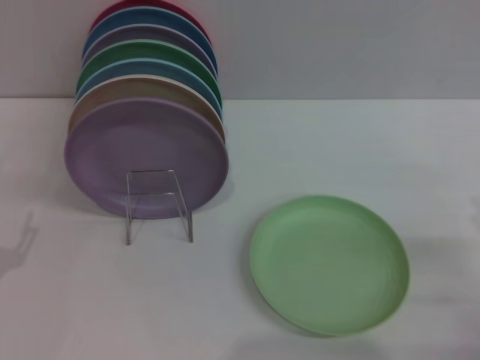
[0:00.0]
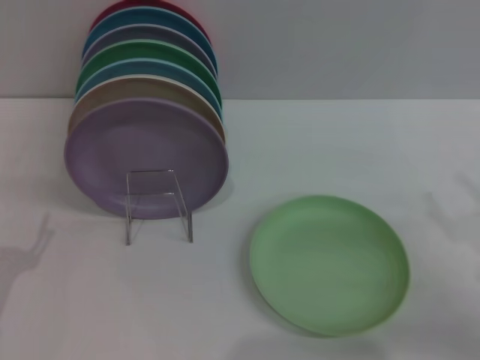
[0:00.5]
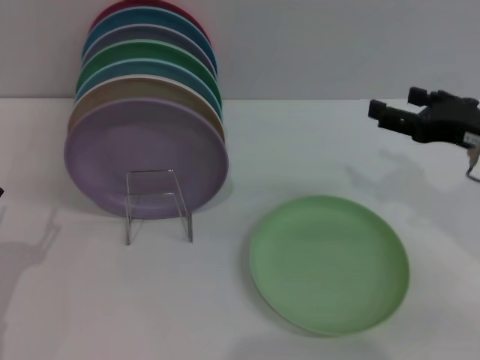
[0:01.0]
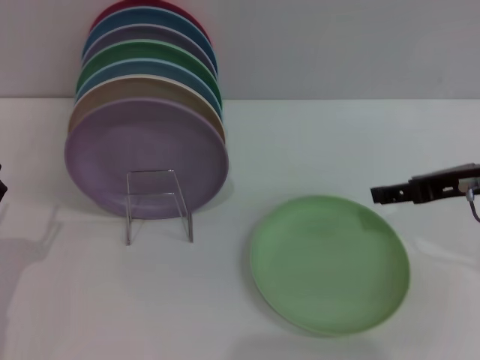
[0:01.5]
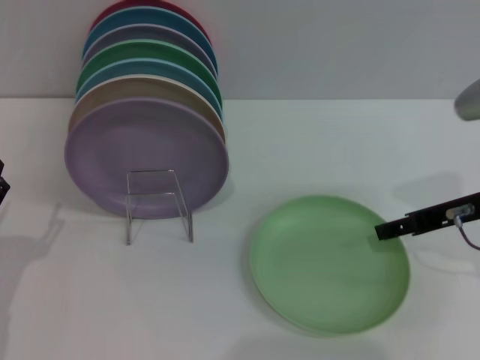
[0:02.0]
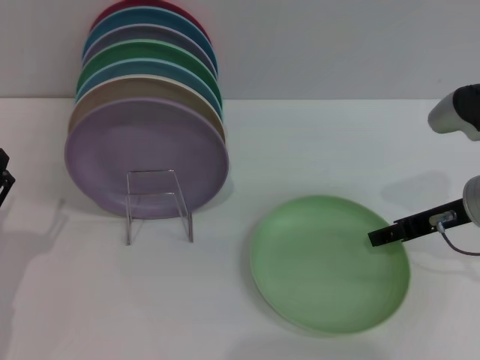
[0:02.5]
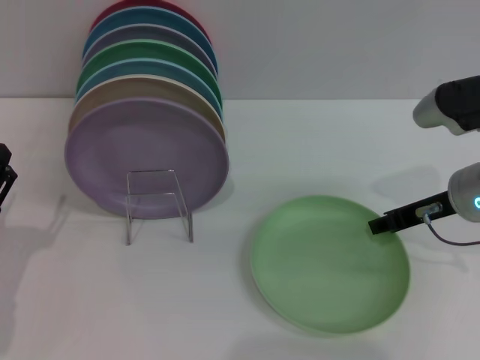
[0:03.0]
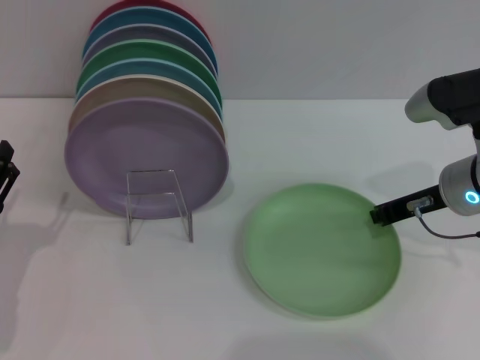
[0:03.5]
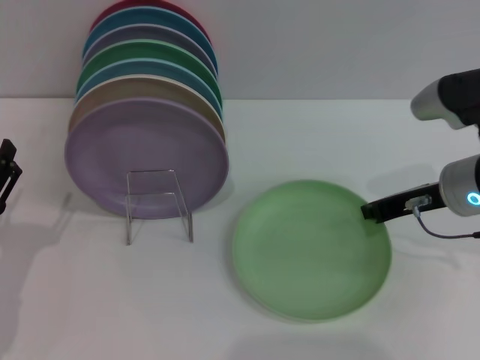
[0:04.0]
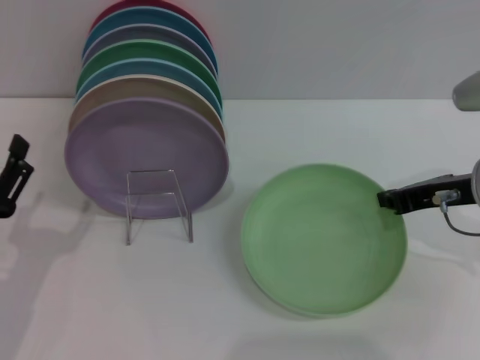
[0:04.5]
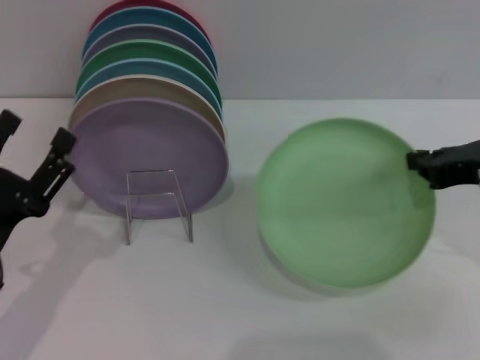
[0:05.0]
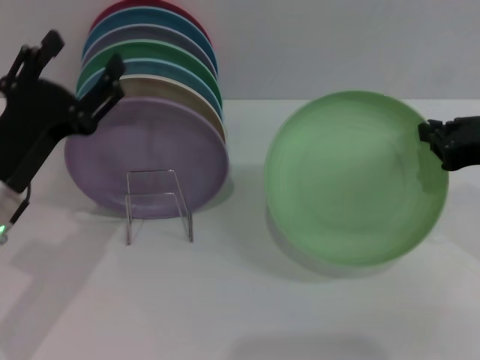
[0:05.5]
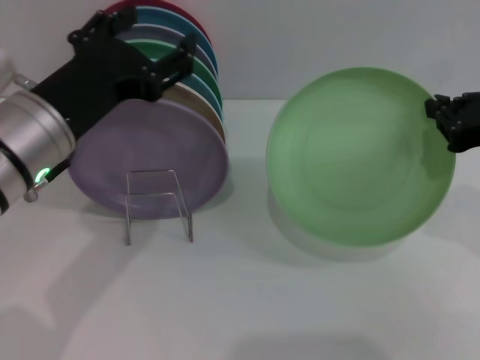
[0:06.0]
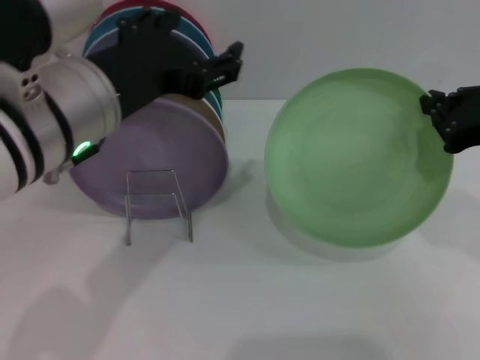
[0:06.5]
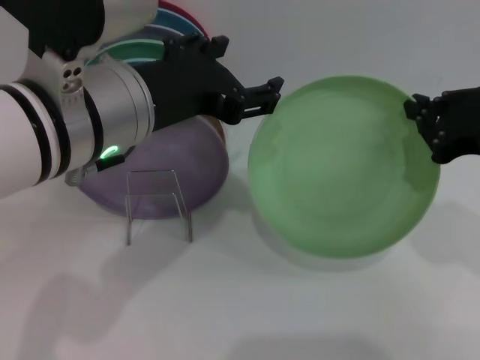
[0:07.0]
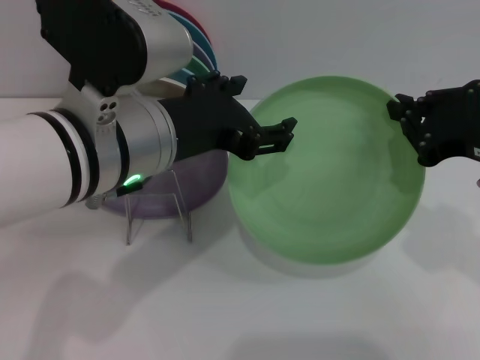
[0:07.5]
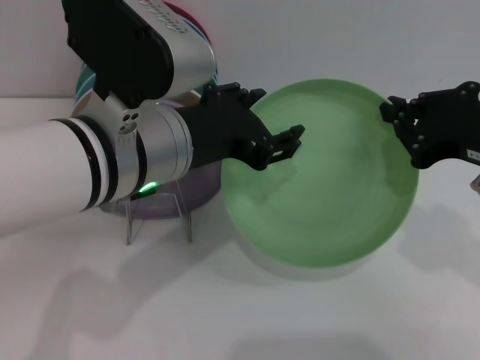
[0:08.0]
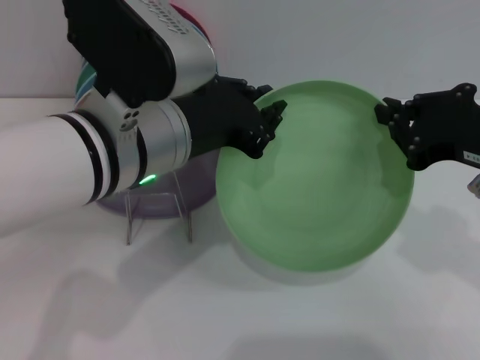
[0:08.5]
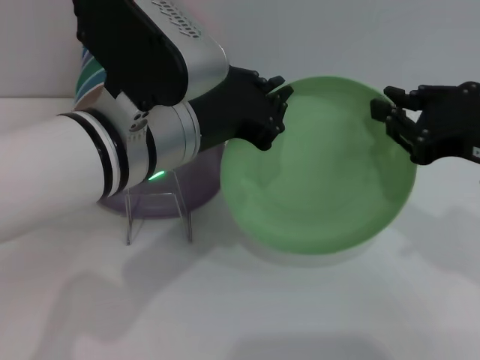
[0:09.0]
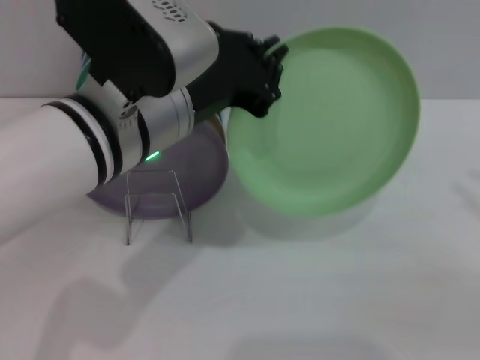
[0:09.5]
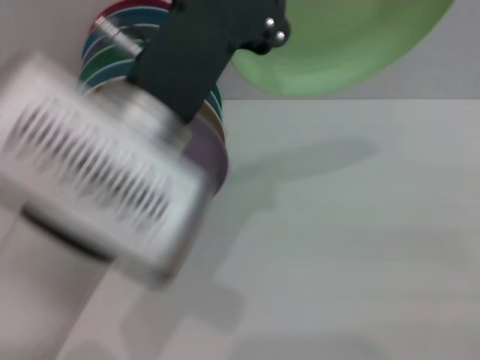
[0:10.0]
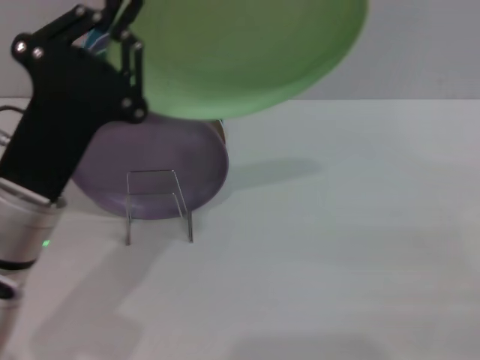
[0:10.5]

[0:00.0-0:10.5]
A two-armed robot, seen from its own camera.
Task of the whole recording: Grip the plate with one hand, pass it to the other, then set it on the shelf.
Step, 0:00.0 to 0:05.0: Pick up the plate with the right gripper.
Step, 0:05.5 to 0:09.0: Pass the plate from the right gripper to the left gripper.
0:00.0 to 0:02.0: The right gripper heads forward, upward and to the left, covering about 20 cm.
0:02.0 to 0:04.0: The right gripper closes its fingers.
0:04.0 to 0:06.5: The left gripper shifts some 25 cm upward and to the right, while the right gripper heads upward and backward, covering roughly 10 cm.
0:06.5 to 0:08.5: The left gripper closes up.
0:08.5 to 0:10.5: The left gripper shifts approximately 10 cm to the left and downward; the right gripper heads to the right, downward and backward, covering about 20 cm, and opens up.

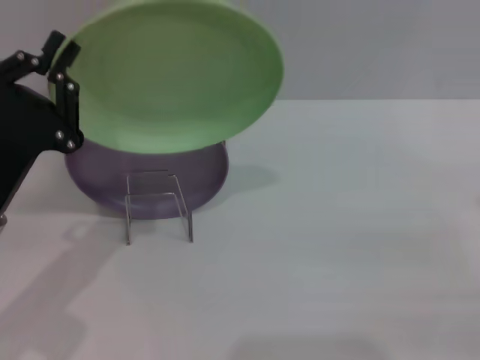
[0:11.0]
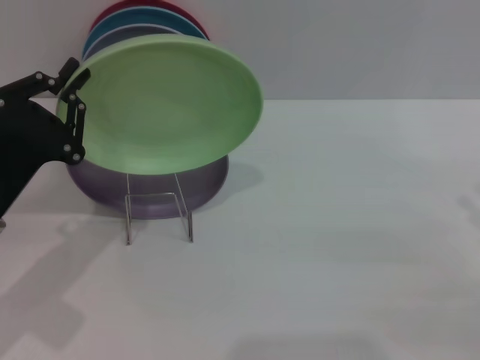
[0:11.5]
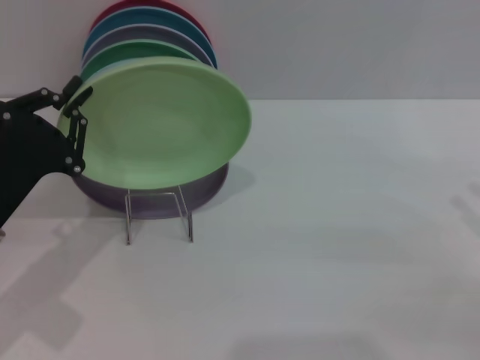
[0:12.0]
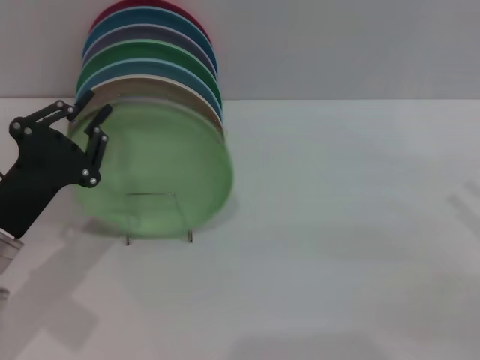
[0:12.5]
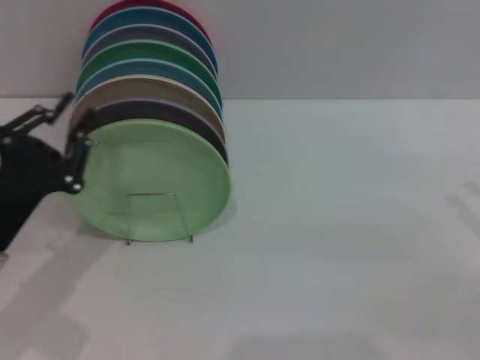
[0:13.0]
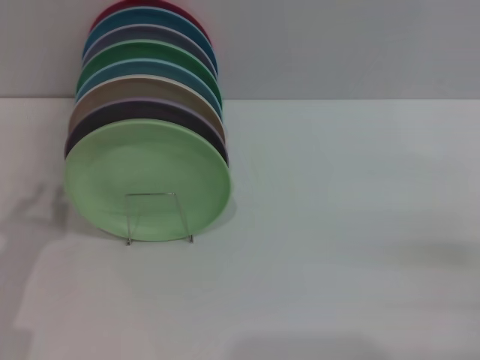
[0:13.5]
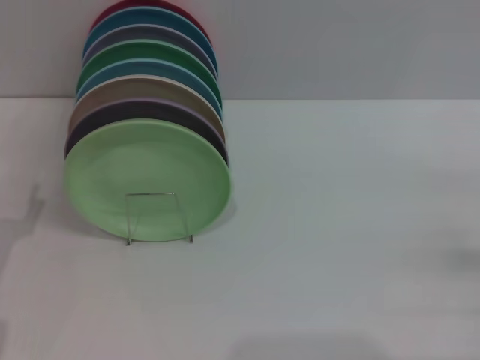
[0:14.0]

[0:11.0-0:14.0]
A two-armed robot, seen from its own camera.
Task of the whole recording: Grip the plate with one hand, pass it to the other, then set it on the shelf.
Step, 0:11.0 to 0:13.0: Place the plate on the shelf with the left gripper.
0:12.5 to 0:14.0: The left gripper shifts roughly 5 cm to the left, and opens up. Meanwhile the right gripper is displaced downward by approximately 5 cm.

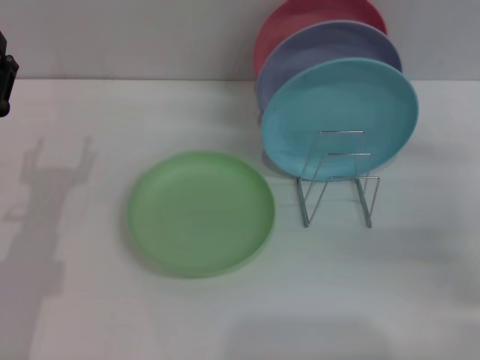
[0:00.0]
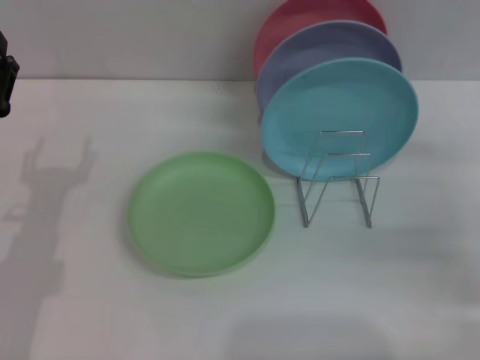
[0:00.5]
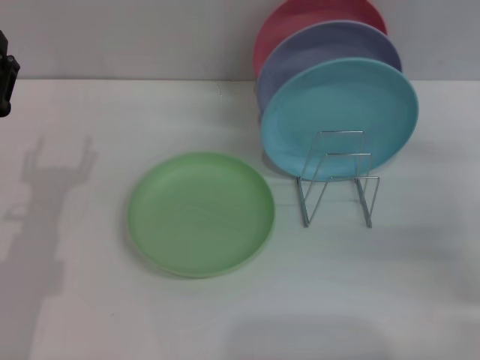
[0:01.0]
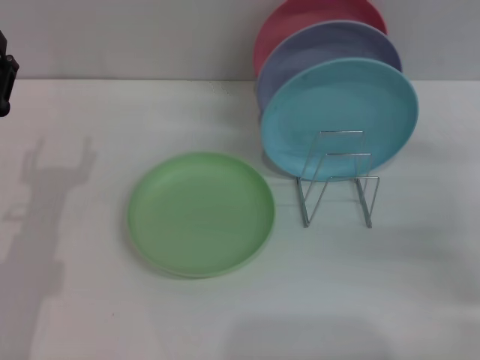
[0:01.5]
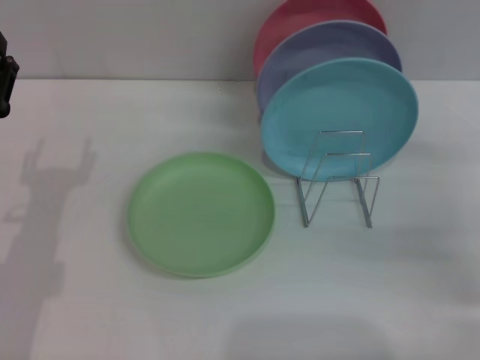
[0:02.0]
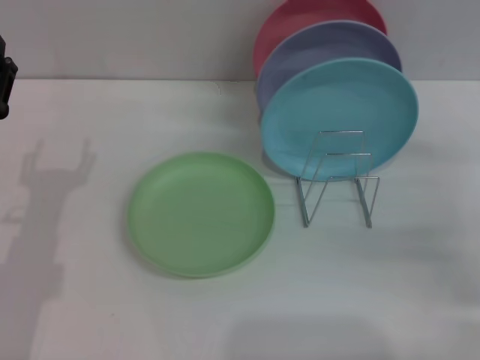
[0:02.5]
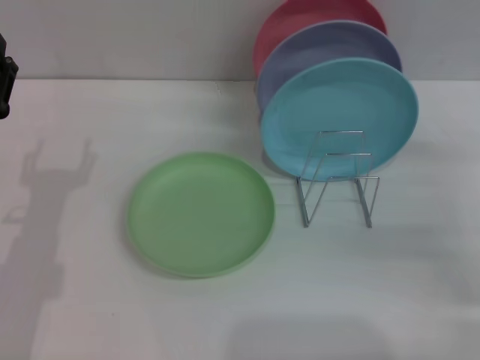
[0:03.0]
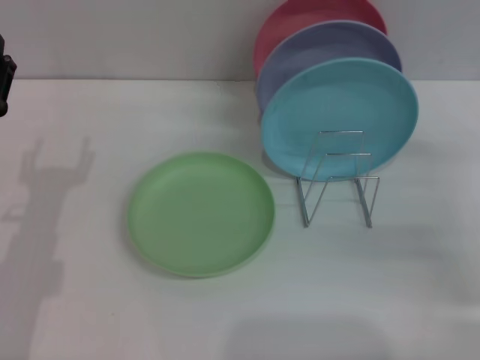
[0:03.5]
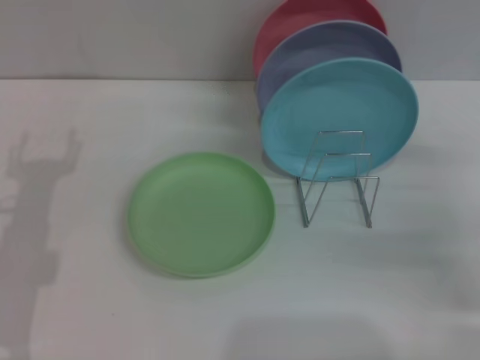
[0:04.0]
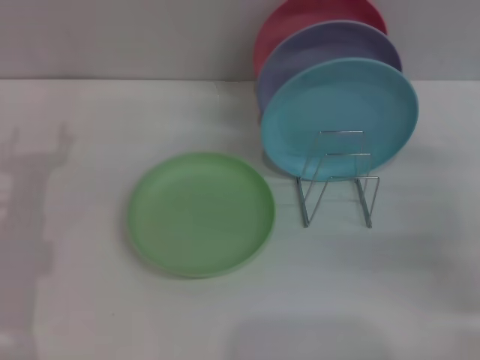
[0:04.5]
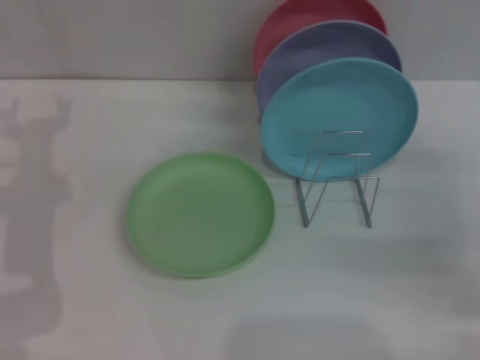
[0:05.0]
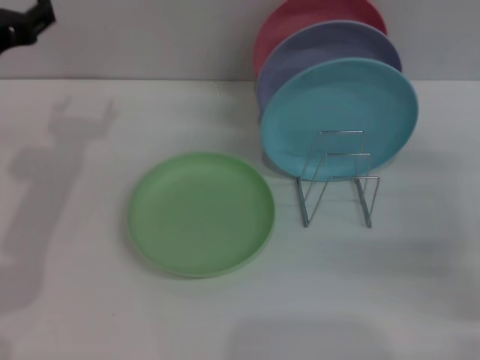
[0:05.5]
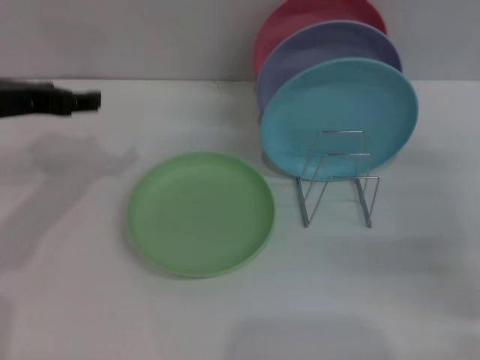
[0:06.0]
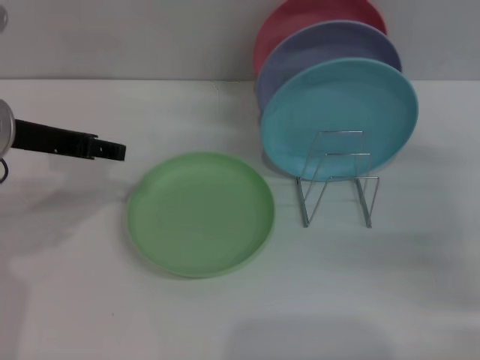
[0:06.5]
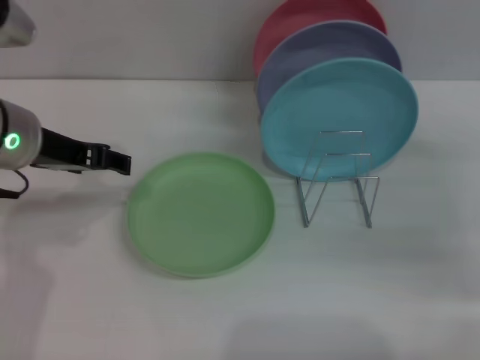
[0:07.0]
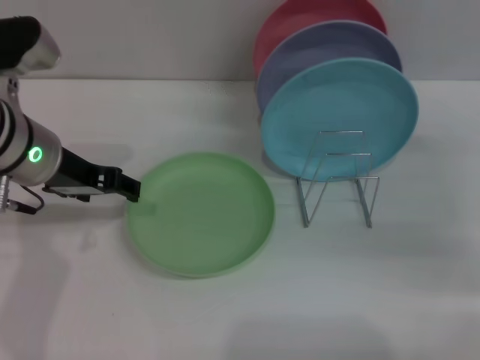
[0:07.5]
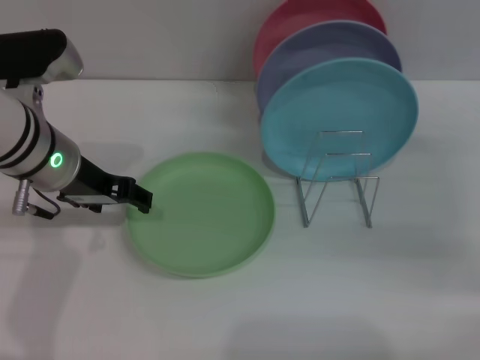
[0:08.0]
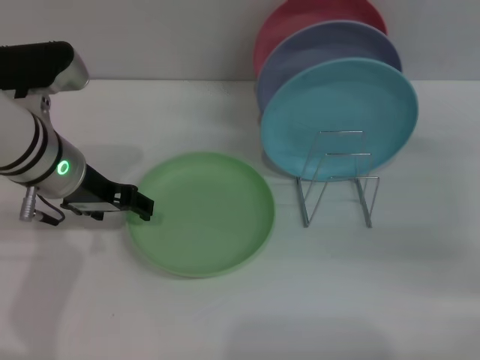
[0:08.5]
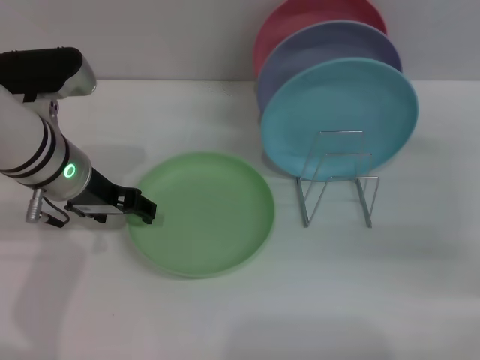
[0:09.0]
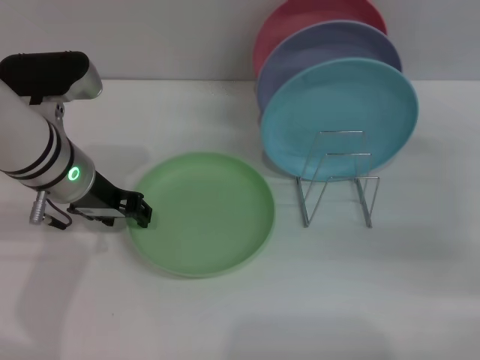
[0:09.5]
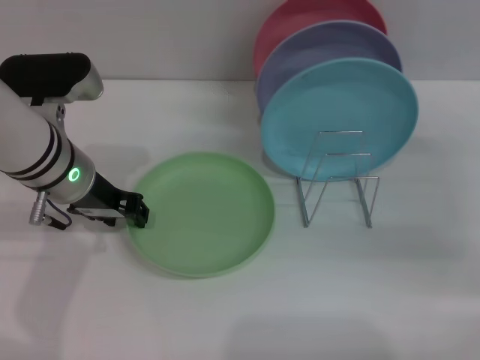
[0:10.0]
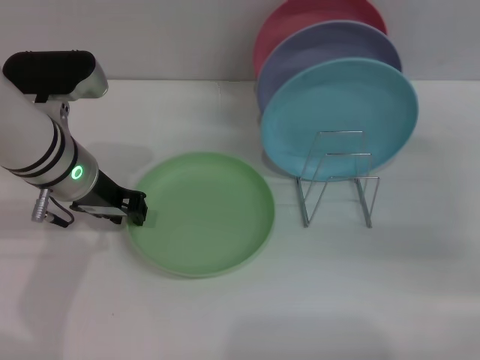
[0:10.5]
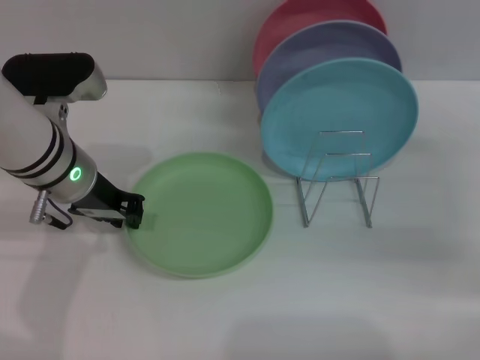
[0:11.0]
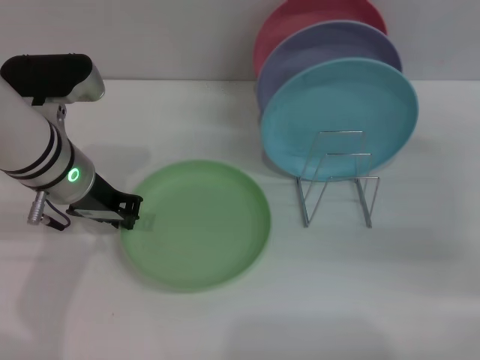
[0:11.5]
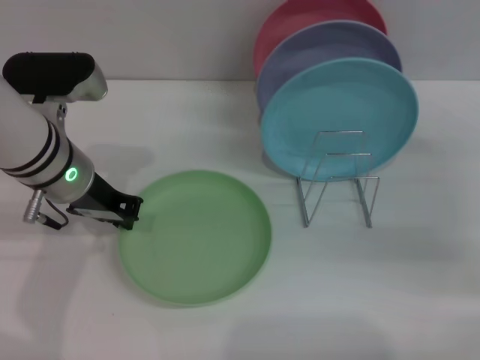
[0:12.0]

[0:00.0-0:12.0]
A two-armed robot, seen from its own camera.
Task of the whole recording: Grip the plate with one hand, pass it to the other, then set it on the shelf.
0:00.0 to 0:02.0: The two grippers keep their place.
0:04.0 to 0:06.0: The left gripper is displaced upward and forward by approximately 15 cm.
0:06.0 to 0:08.0: The left gripper shifts about 5 cm to the right.
0:08.0 to 0:10.0: The left gripper closes its fingers.
0:10.0 to 0:12.0: The left gripper closes up.
